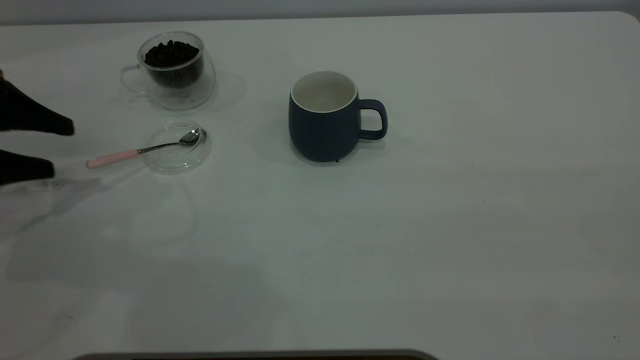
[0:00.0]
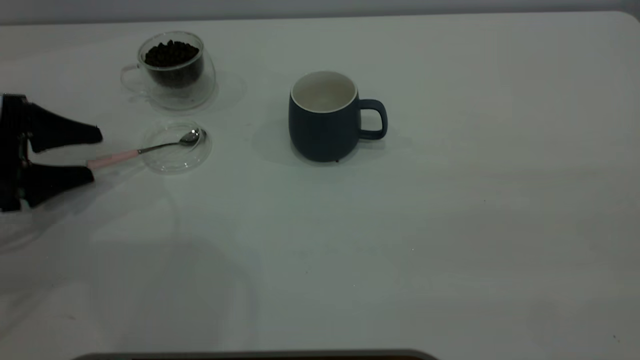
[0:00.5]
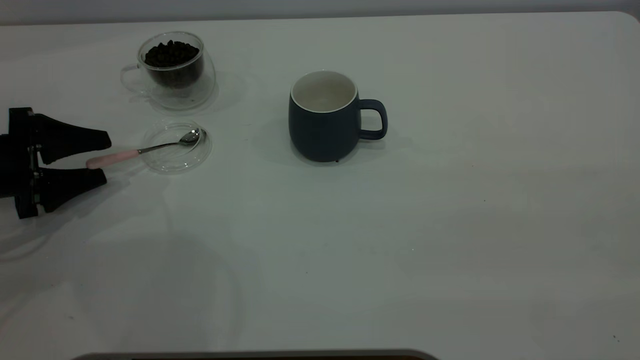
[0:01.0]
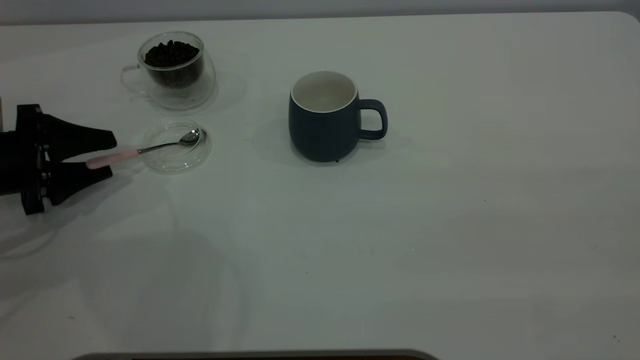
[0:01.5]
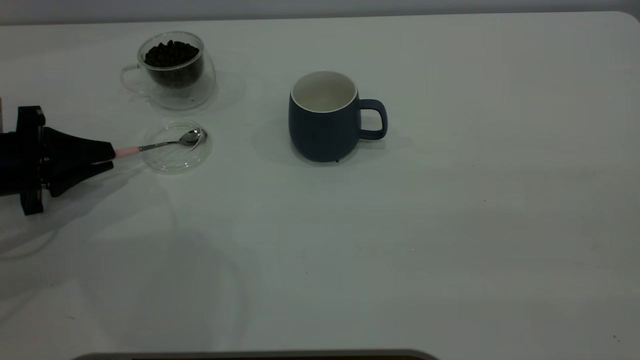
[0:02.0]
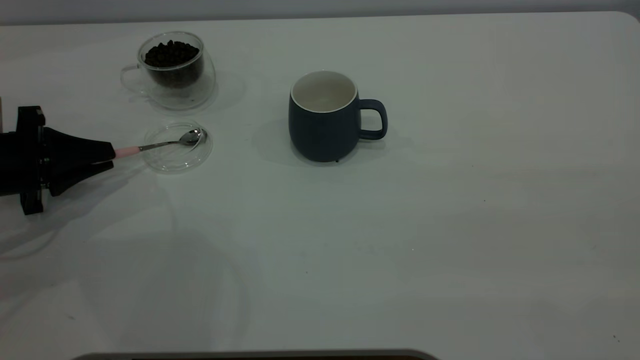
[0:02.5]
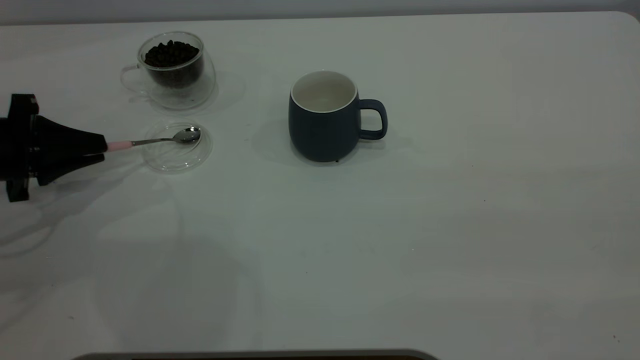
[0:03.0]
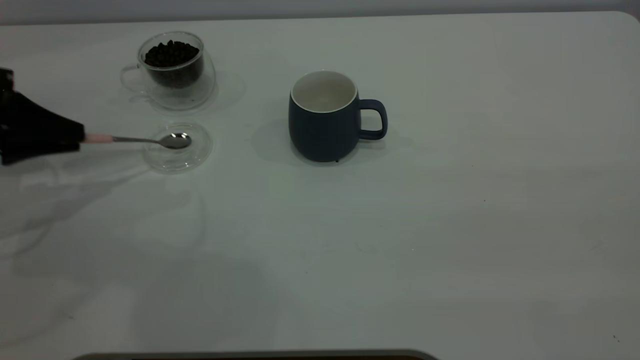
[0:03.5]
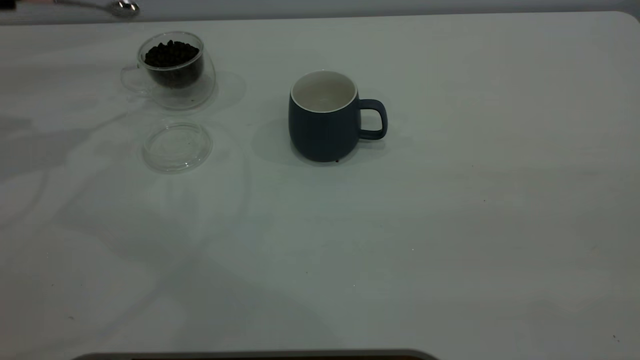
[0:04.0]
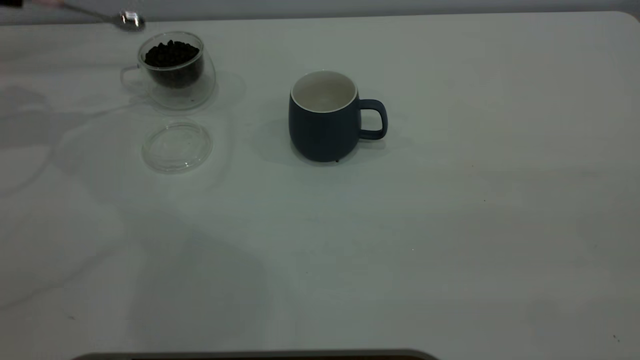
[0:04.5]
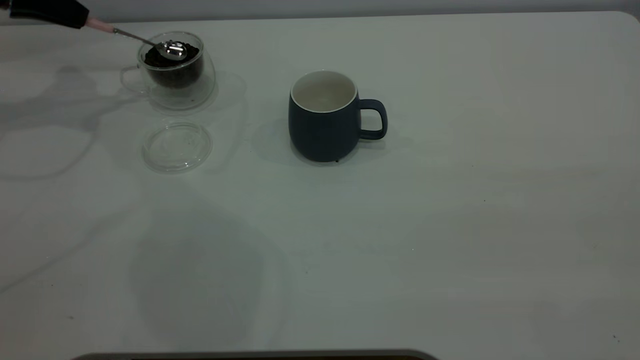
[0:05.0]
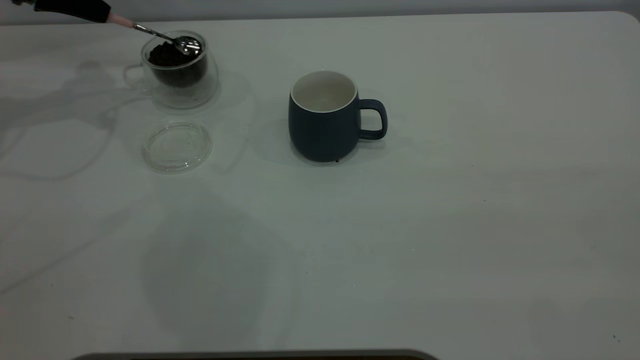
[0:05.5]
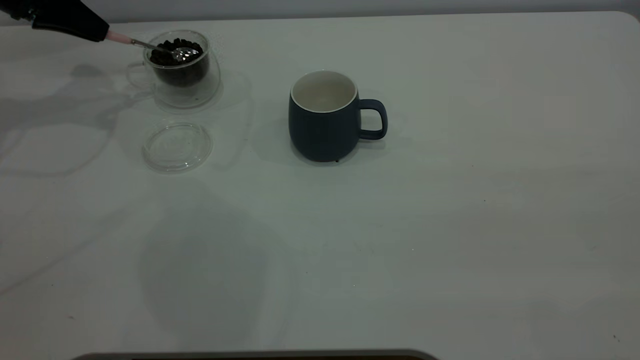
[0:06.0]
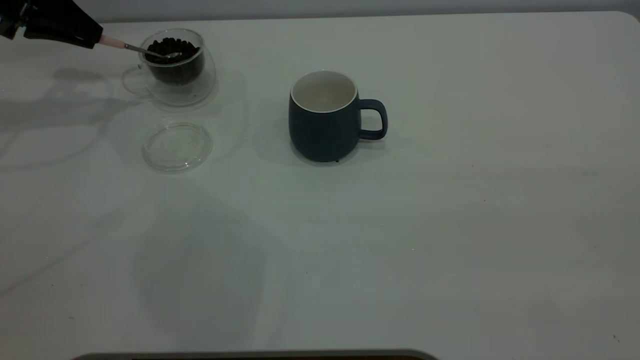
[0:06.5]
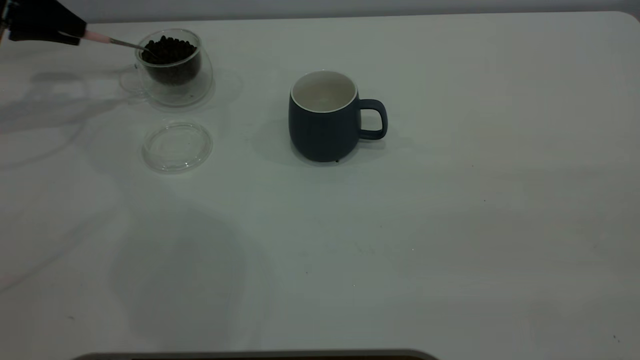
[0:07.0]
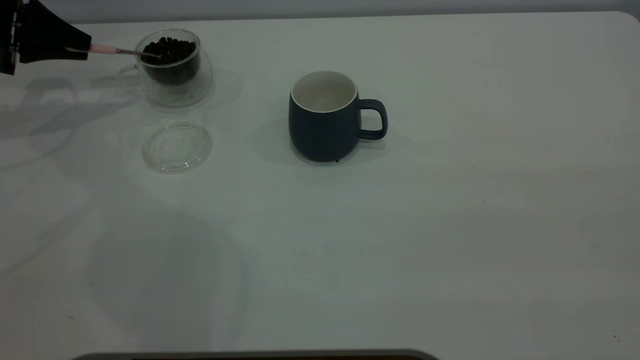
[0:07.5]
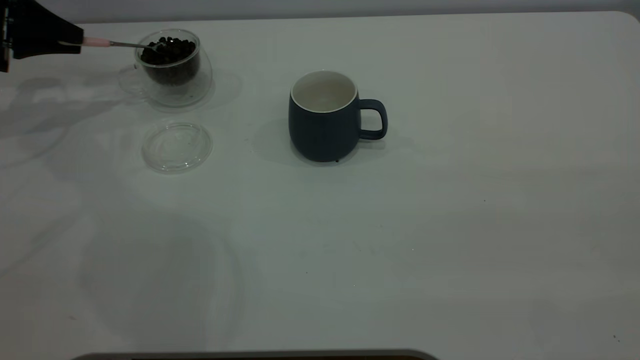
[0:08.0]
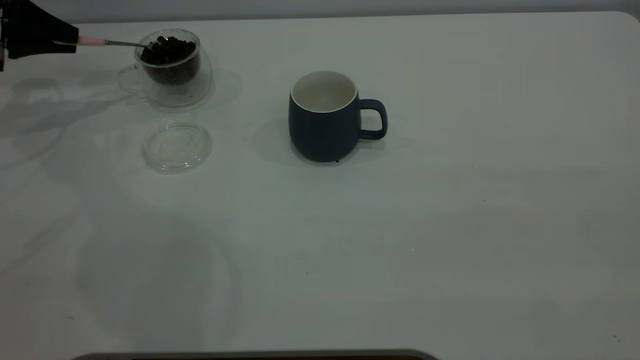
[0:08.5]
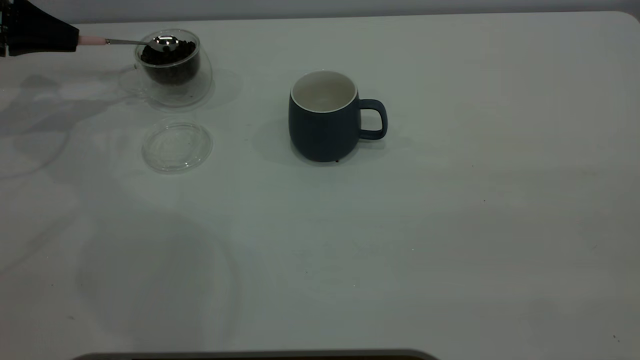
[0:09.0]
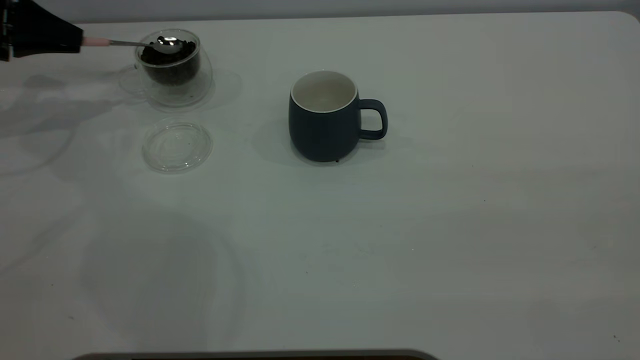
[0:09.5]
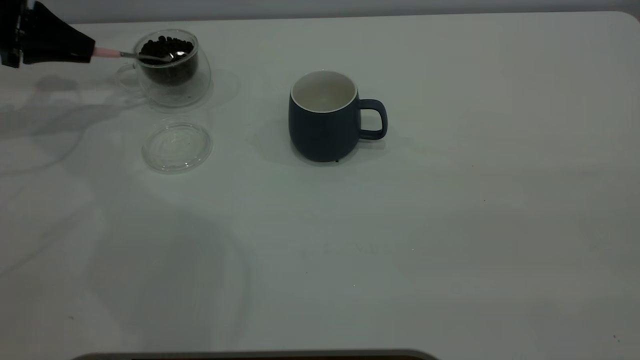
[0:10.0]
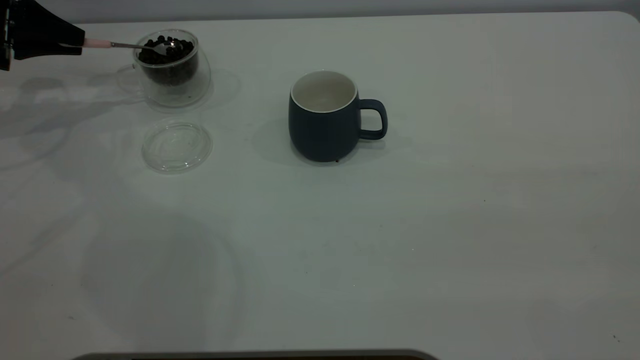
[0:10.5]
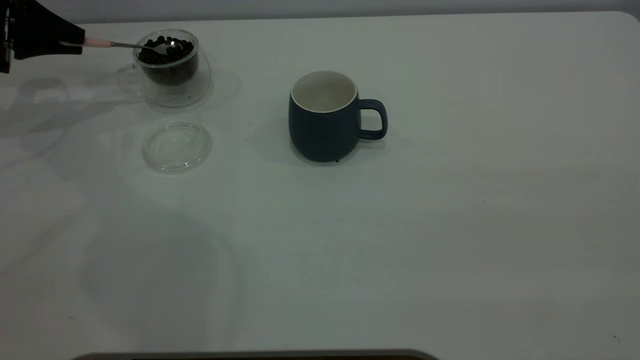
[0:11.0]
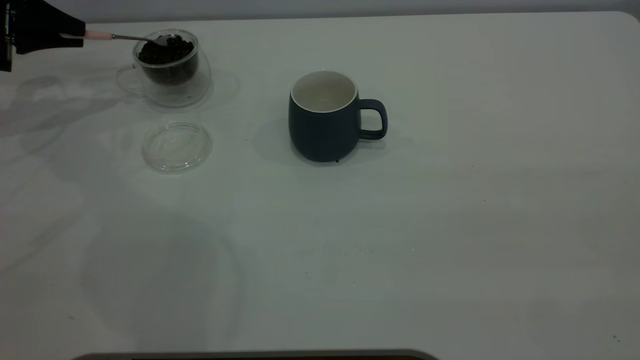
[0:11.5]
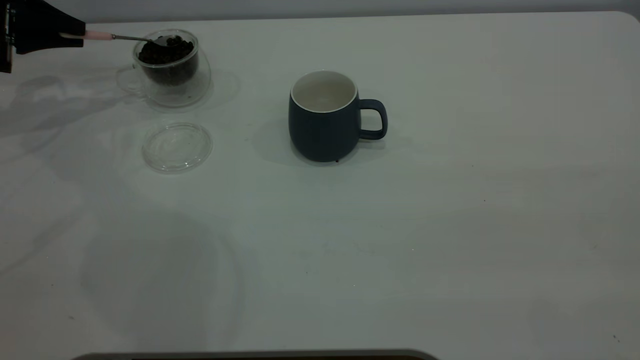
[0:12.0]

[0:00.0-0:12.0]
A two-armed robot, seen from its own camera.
Task of the whole recording: the right gripper place the grey cup in the center of the table, the left gripper take the pink spoon from the cup lid and scoop out the coffee beans from the coffee cup and put them into the grey cup, the left gripper put the spoon back into the cup lid.
Step, 0:00.0 to 0:03.5: Pick up the spoon.
0:00.0 to 0:02.0: The left gripper goes about 5 cm downward, and closes up.
0:02.0 to 0:04.0: The left gripper moves upward and forward, roughly 20 cm.
0:04.0 to 0:06.0: The left gripper is displaced forward and downward by some 15 cm.
0:06.0 to 0:08.0: The left gripper is displaced to the left by some 5 cm.
0:08.0 to 0:10.0: The grippers stay close to where they were, moving slightly.

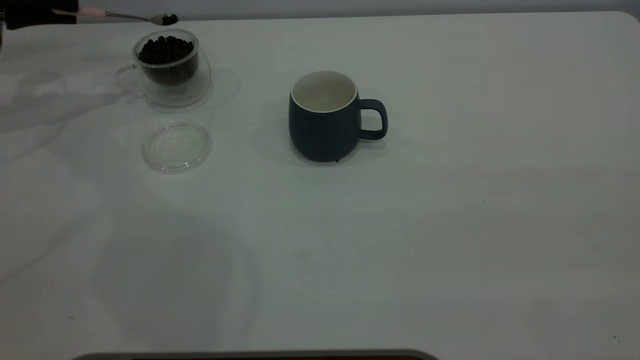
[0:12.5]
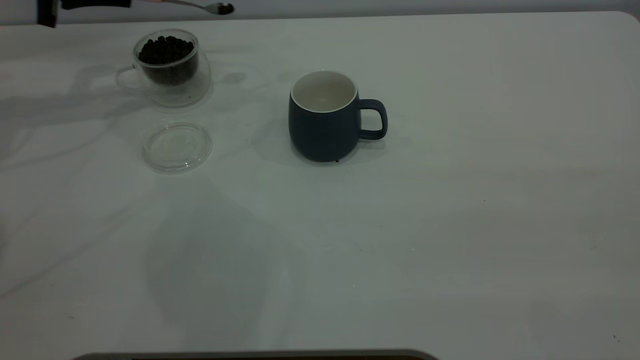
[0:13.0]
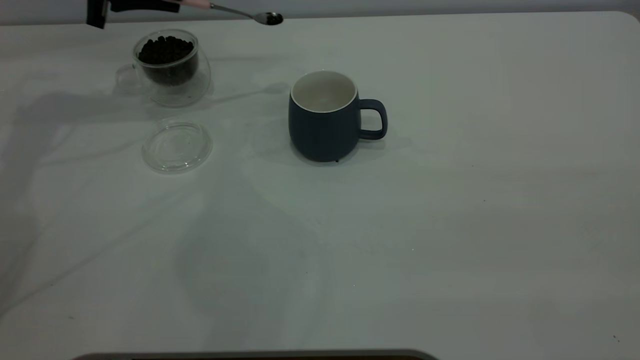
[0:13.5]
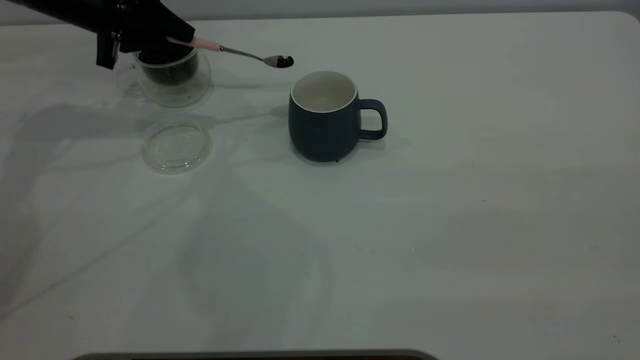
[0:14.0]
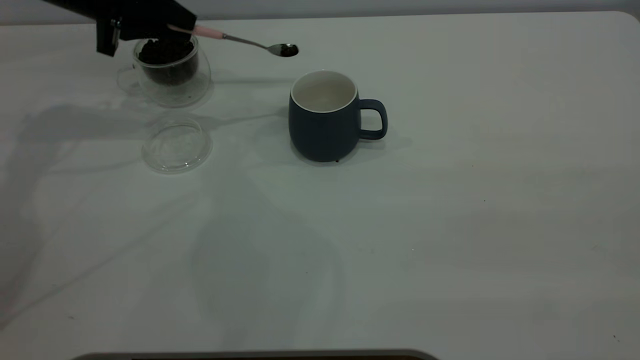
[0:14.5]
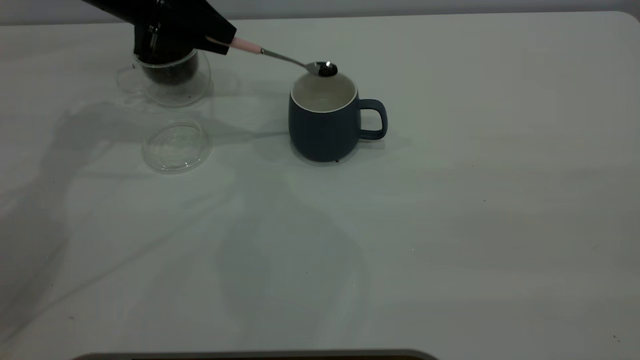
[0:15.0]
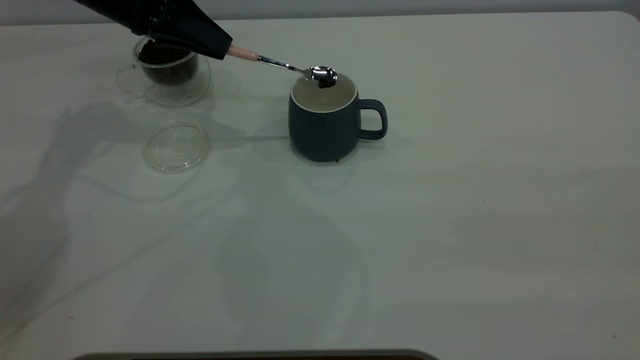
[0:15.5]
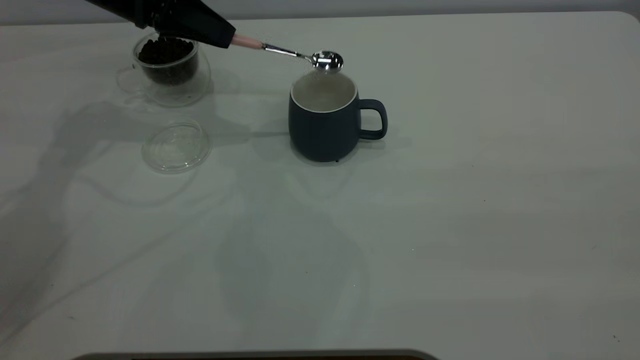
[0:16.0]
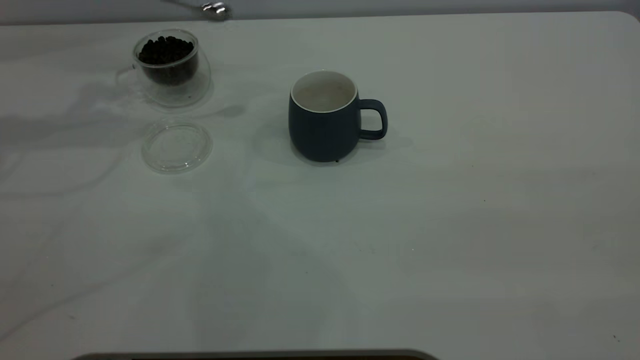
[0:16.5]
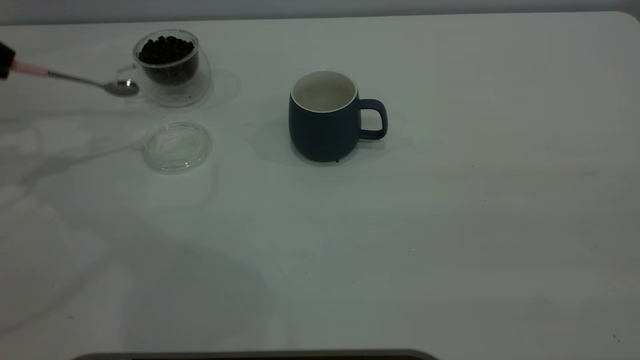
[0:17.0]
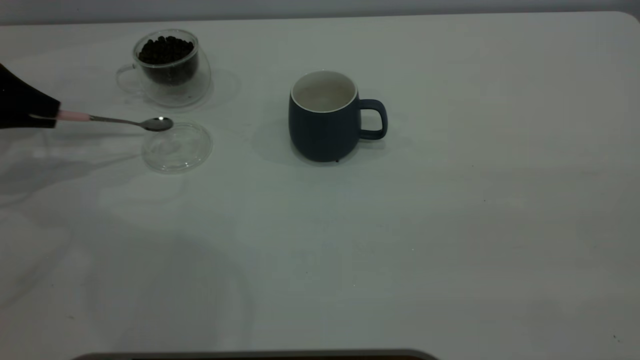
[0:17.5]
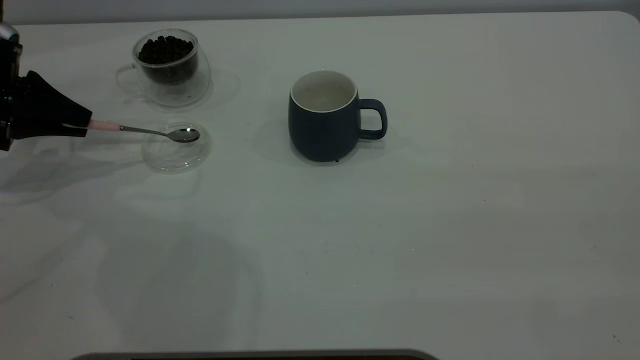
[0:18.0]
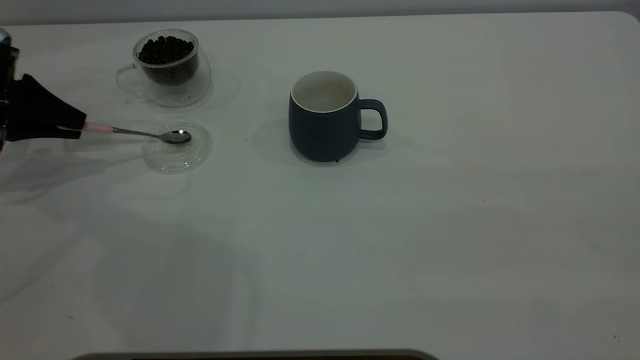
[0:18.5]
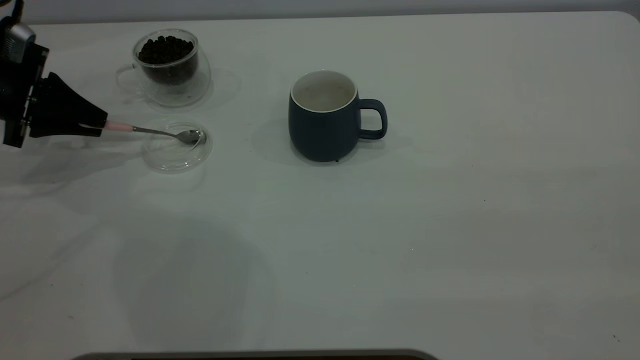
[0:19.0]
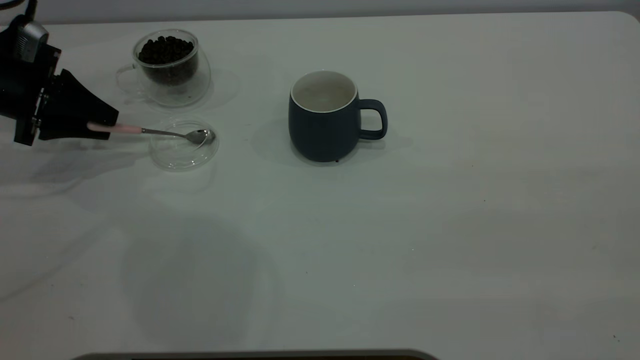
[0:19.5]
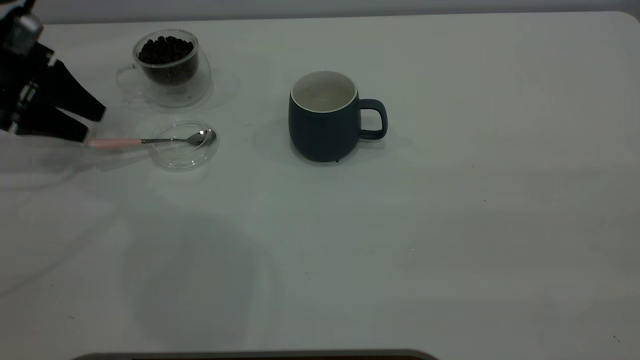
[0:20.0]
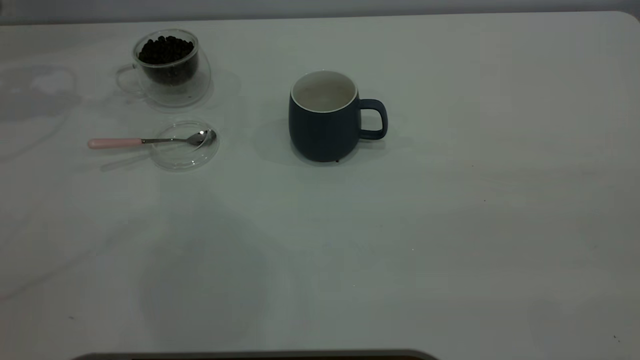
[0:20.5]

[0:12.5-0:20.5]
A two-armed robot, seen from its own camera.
Task of the whole recording: the right gripper place the grey cup in the center of the table, the left gripper take the pink spoon from the cup lid and scoop out the coffee beans from the coffee cup and put them into the grey cup, the left gripper put the spoon back into the cup lid.
Step, 0:12.5 to 0:16.0: Scoop a spoonful of beans into the cup.
Step, 0:16.5 to 0:20.0: Place the spoon back in its original place.
0:12.5 to 0:14.5: The left gripper moves to the right, some 15 cm.
0:14.5 to 0:16.5: The left gripper heads to the left and upward, covering approximately 10 cm.
0:16.5 to 0:18.5: The left gripper travels downward and to the left by approximately 15 cm.
0:18.5 to 0:20.5: The left gripper moves upward and forward, roughly 20 cm, and opens up.
